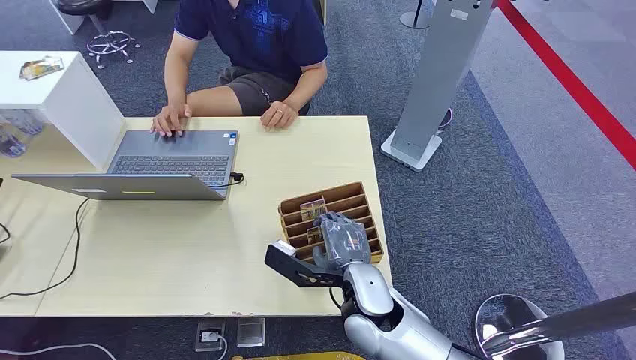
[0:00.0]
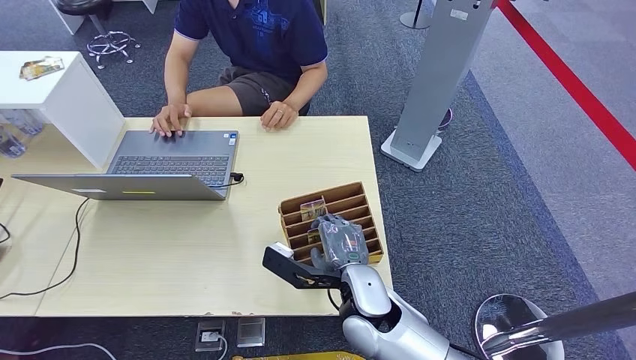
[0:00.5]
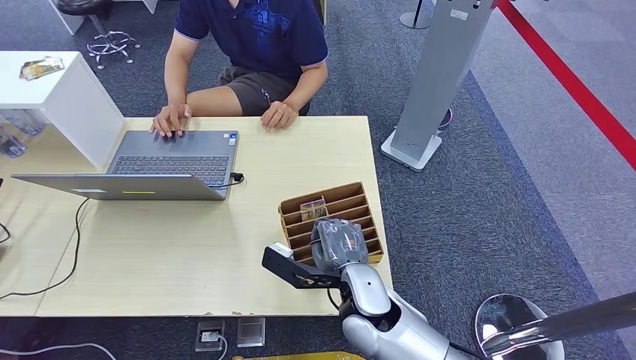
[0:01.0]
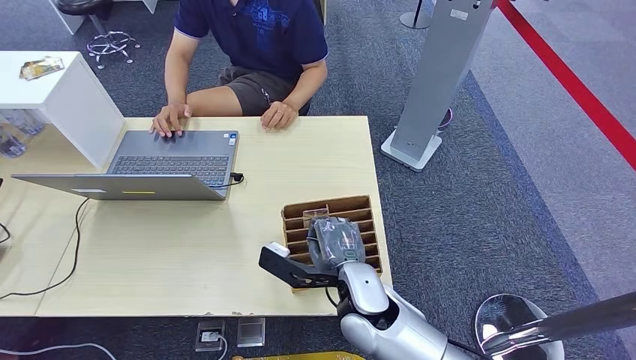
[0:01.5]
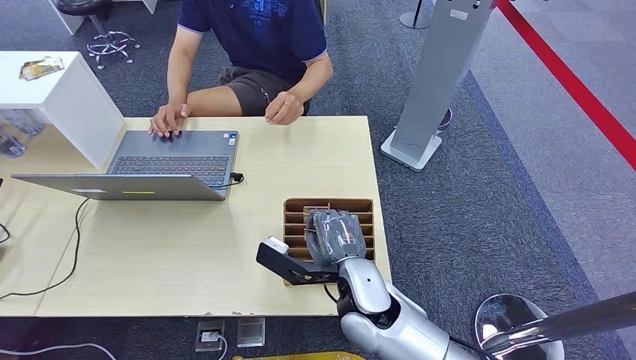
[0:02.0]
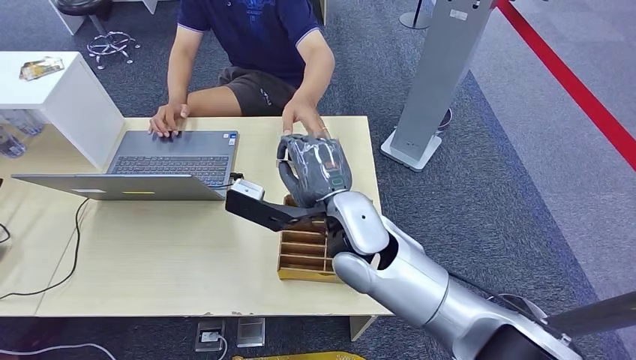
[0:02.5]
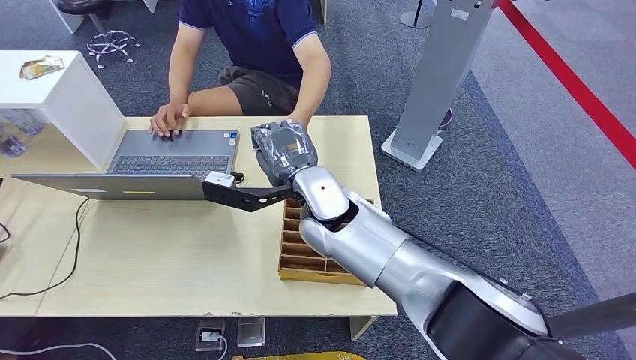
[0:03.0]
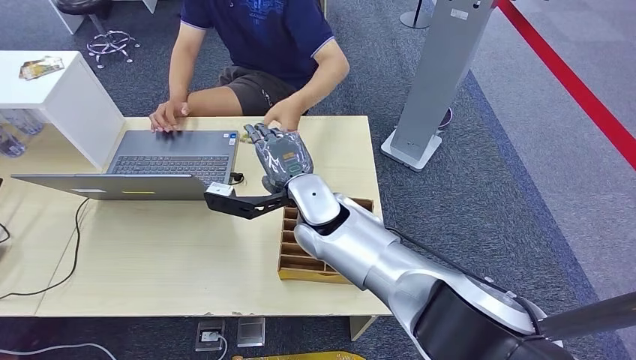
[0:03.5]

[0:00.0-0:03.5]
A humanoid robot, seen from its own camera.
Step, 0:00.0 to 0:02.0: Pick up the key card from the card box.
Step, 0:02.5 to 0:03.5: Hand the key card to the target.
0:02.0 to 0:03.5: The right hand is displaced forward, upward and to the left by roughly 15 cm.
